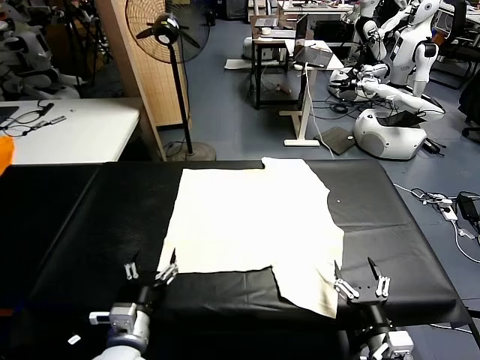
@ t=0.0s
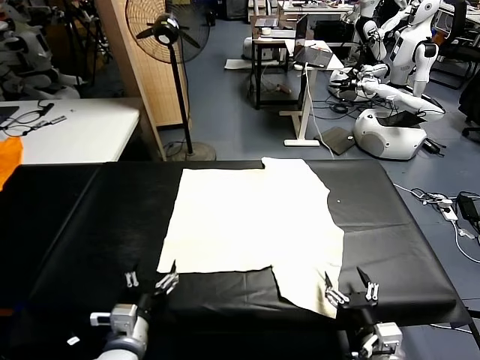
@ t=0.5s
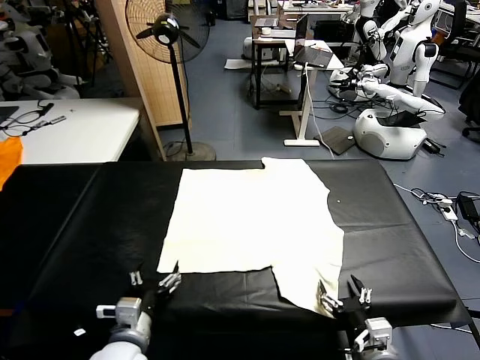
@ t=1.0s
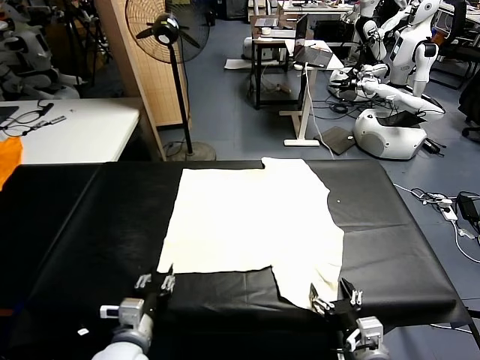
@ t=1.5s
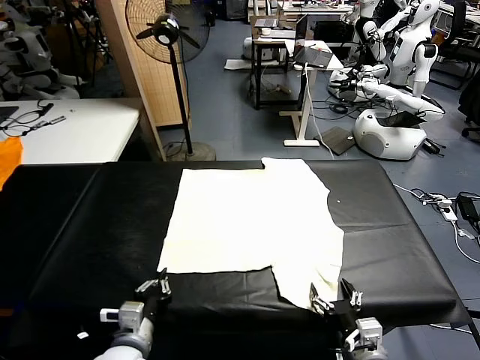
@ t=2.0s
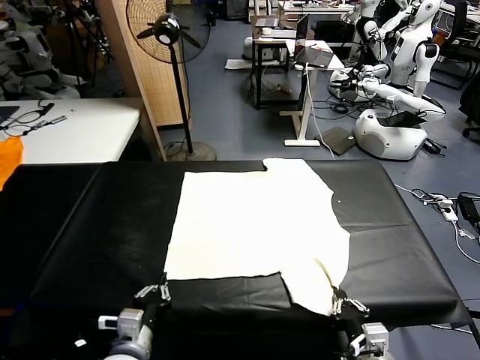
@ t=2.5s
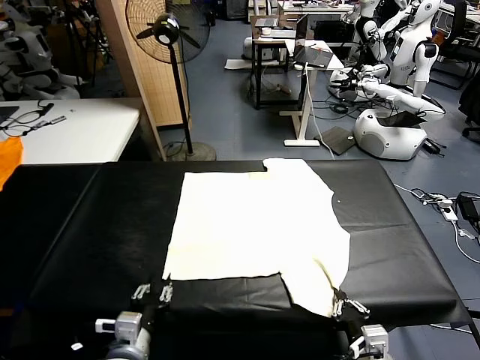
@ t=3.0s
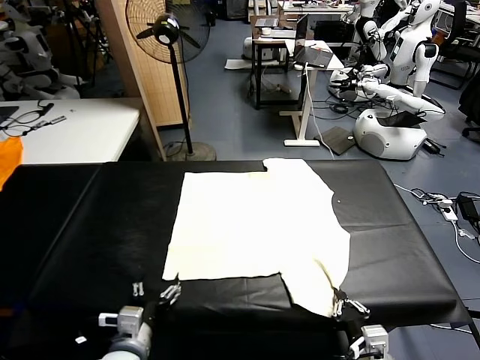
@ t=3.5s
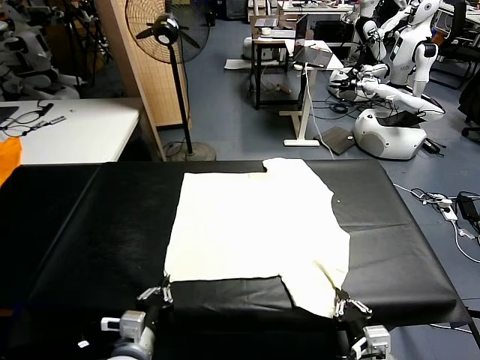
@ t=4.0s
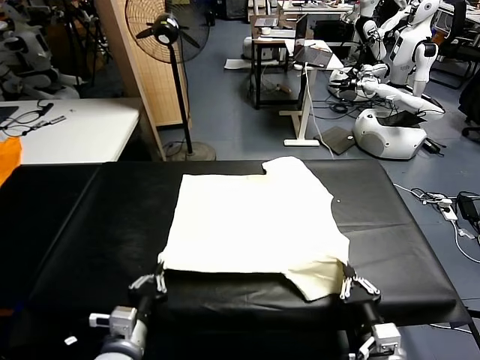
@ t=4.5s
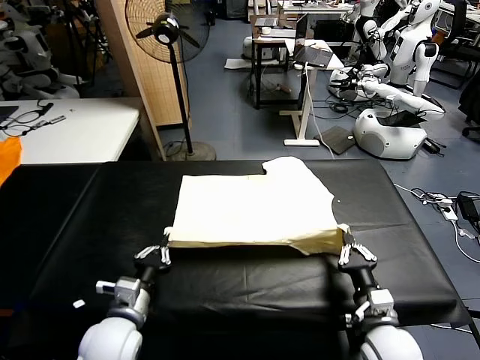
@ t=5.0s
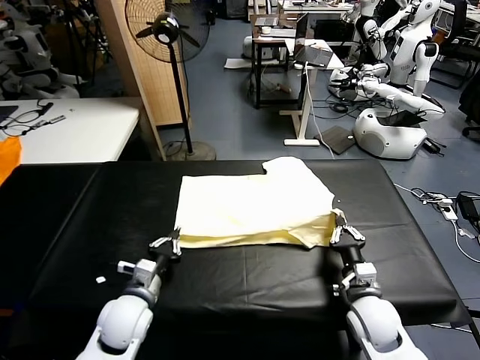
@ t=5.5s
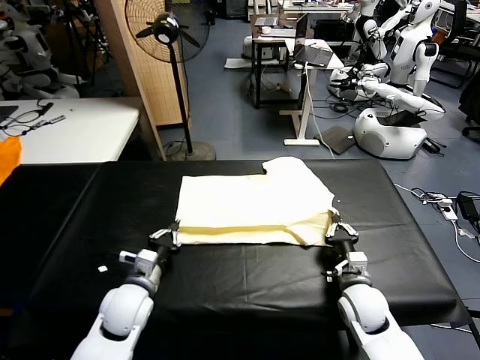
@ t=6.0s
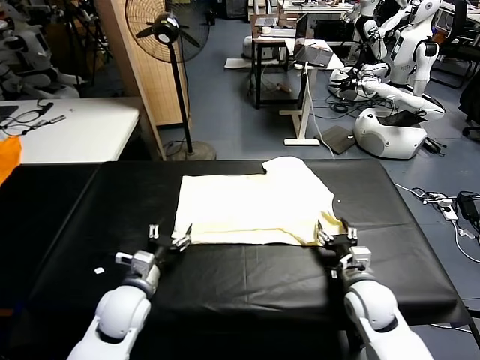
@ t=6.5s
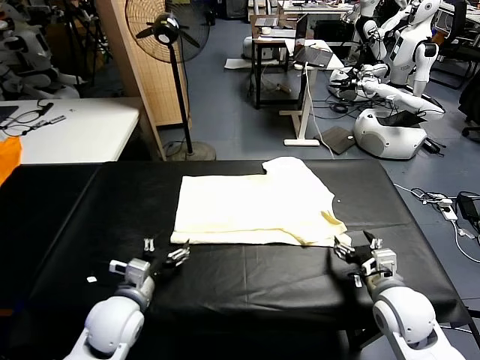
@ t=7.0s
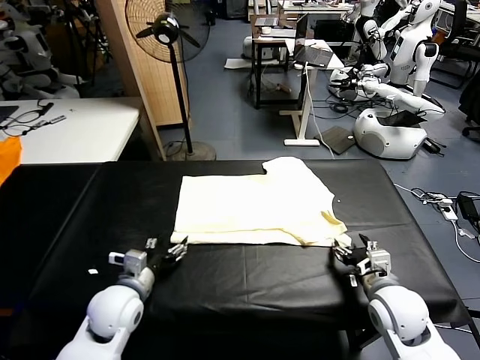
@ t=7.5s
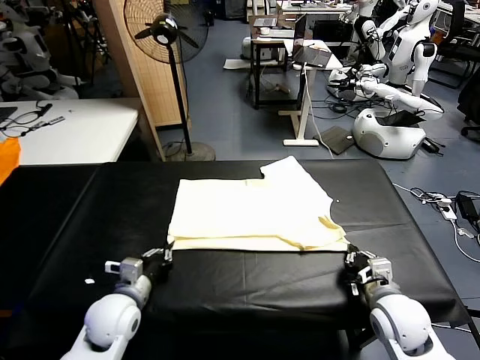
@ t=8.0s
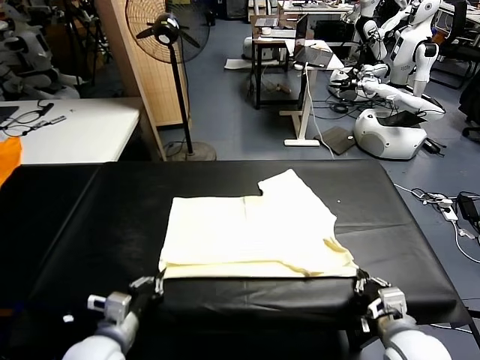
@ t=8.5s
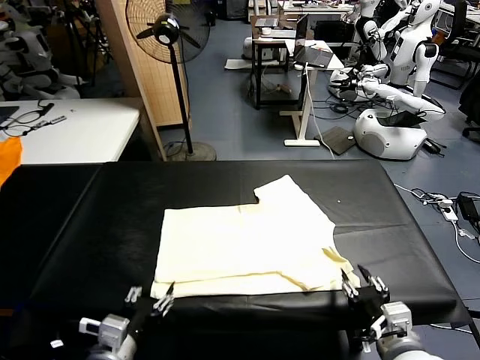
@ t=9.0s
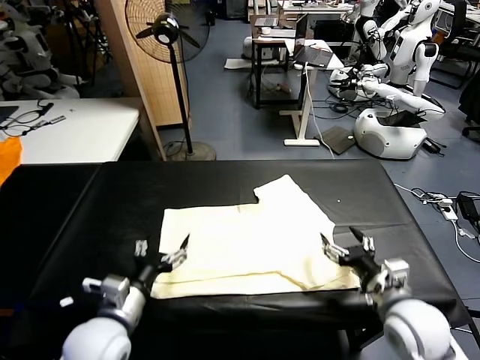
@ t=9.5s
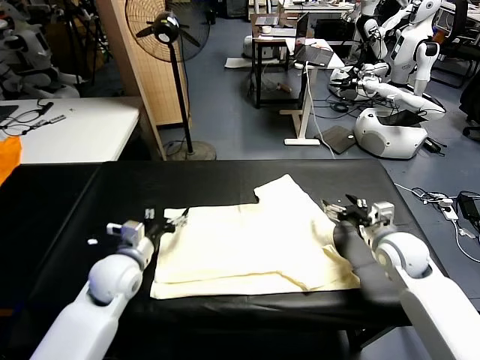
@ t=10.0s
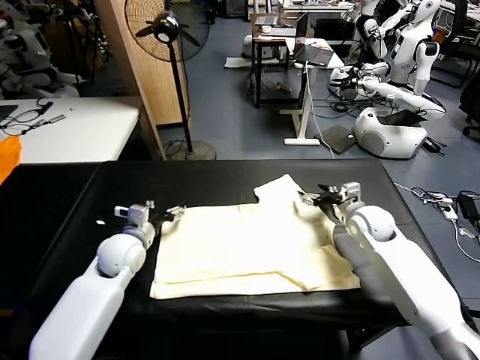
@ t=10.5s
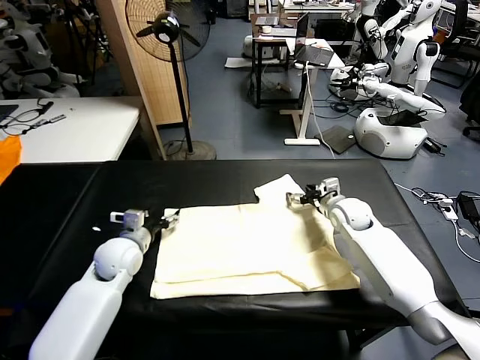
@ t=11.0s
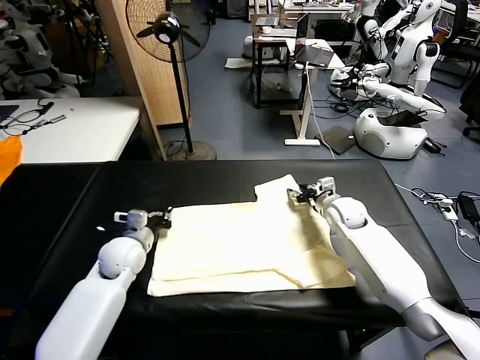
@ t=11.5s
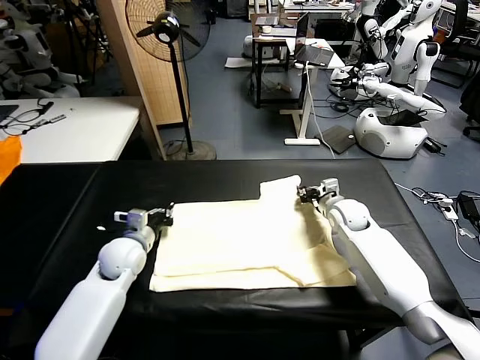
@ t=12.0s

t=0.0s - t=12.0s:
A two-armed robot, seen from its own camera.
Task of the whole recording: fold and organize the clothes.
Step, t=0.0s - t=4.0s: use both grippers simultaneously to clamp the lower edge of the clothing fabric.
Step, t=4.5s - t=6.5s: use both grippers to drag the lower edge of the fabric forward and fold it over the upper edge.
Step, t=7.0s - t=9.0s: Drag the clothes downward with both gripper.
Step, t=9.5s - t=11.5s: use both grippers simultaneously to clamp the upper edge of the clothing fabric.
t=2.0s - t=4.0s: The left gripper opens, then closes once more, while the right gripper closes its fingers.
t=4.0s - t=6.0s: Both grippers travel together forward, roughly 15 cm.
t=6.0s - t=8.0s: The left gripper opens, then closes once more; the right gripper heads upward and backward, covering roughly 10 cm, and opens, then closes again.
t=8.0s - t=10.0s: The left gripper moves forward, about 10 cm, and opens; the right gripper heads forward, covering about 15 cm, and opens.
t=10.0s - t=12.0s: The left gripper is displaced forward by roughly 5 cm, and closes; the right gripper moves forward and to the left, about 10 cm, and closes.

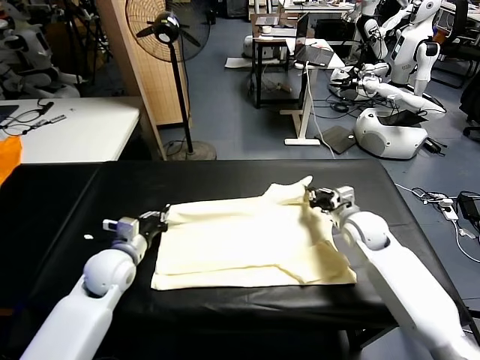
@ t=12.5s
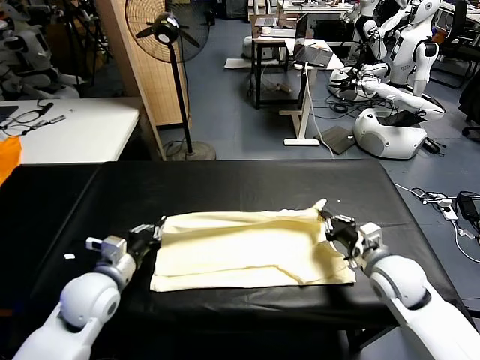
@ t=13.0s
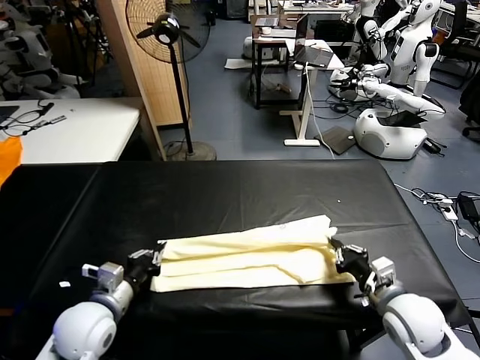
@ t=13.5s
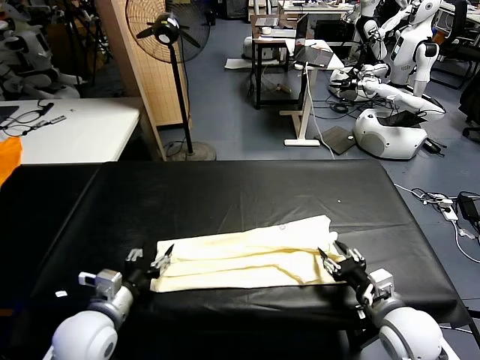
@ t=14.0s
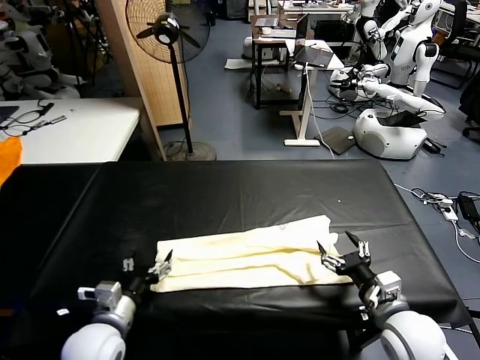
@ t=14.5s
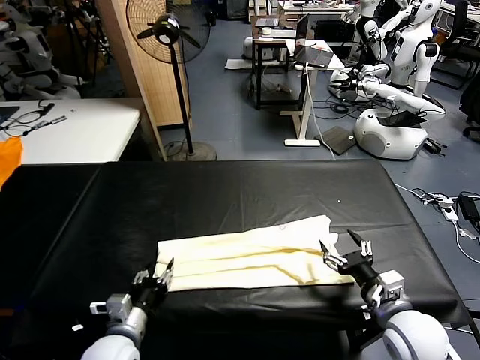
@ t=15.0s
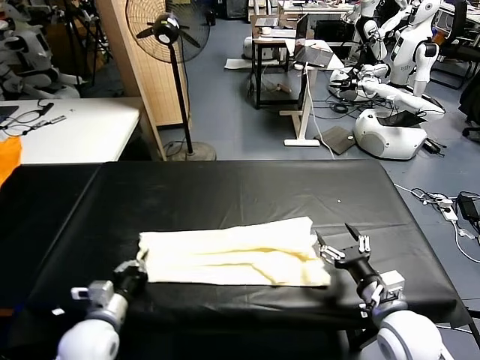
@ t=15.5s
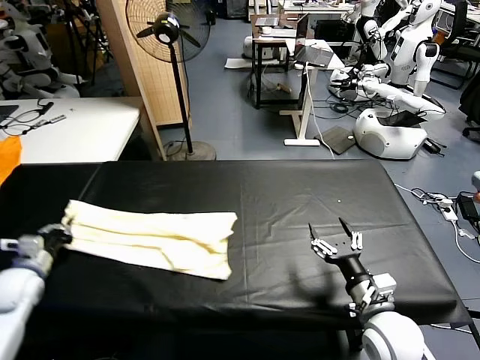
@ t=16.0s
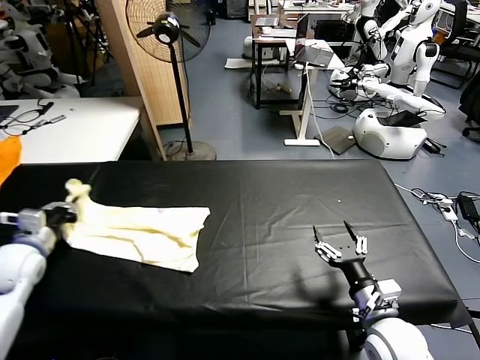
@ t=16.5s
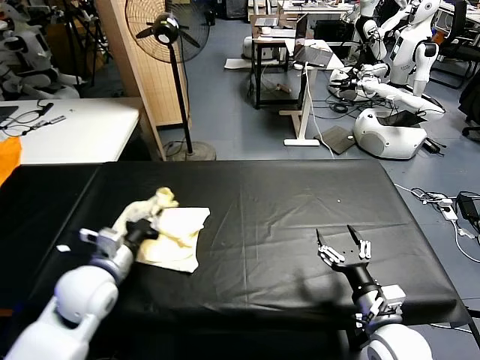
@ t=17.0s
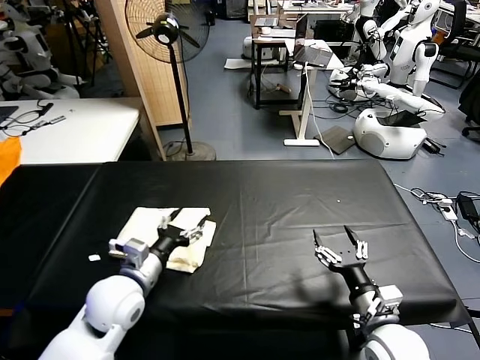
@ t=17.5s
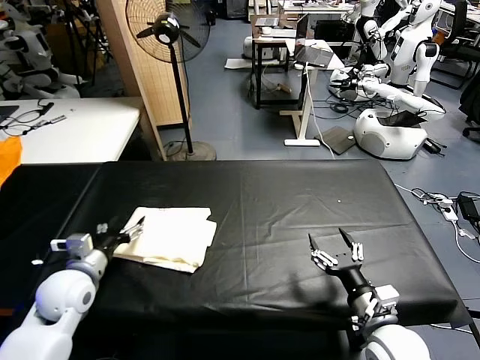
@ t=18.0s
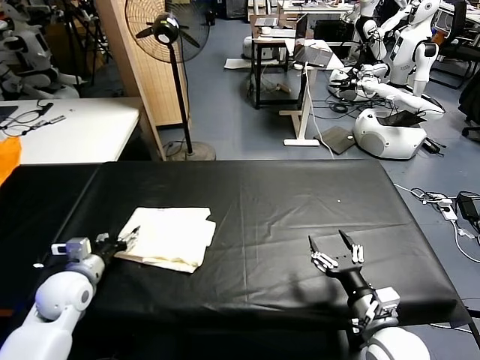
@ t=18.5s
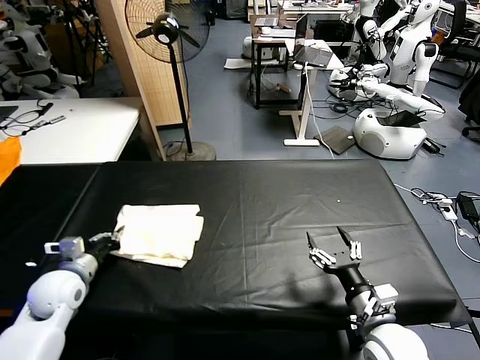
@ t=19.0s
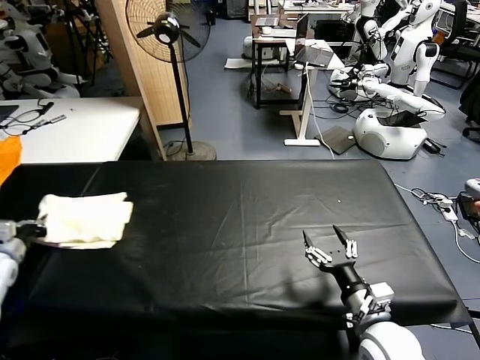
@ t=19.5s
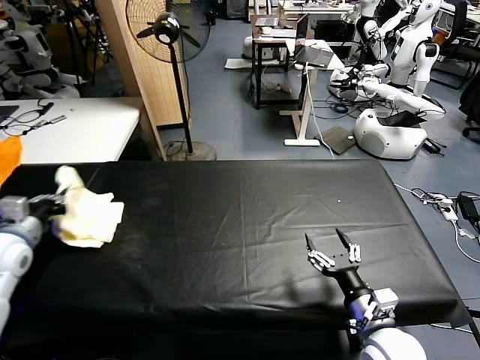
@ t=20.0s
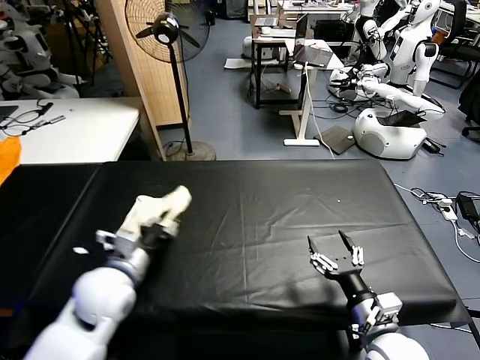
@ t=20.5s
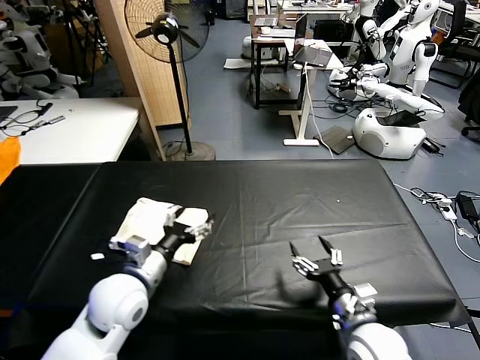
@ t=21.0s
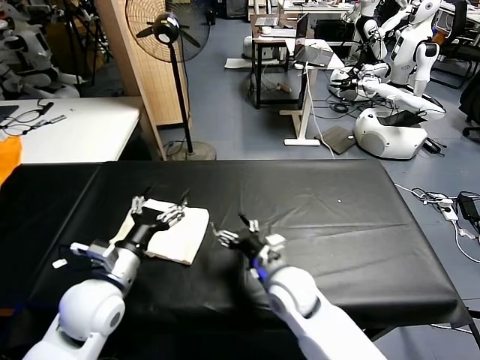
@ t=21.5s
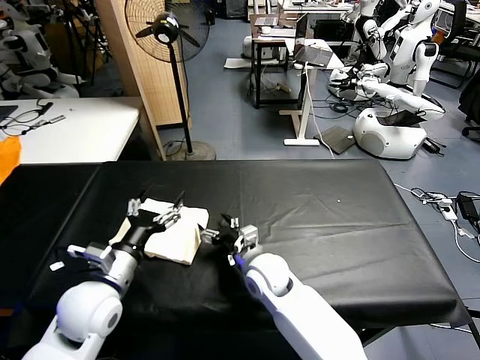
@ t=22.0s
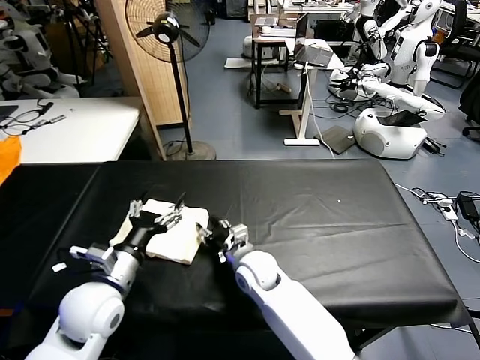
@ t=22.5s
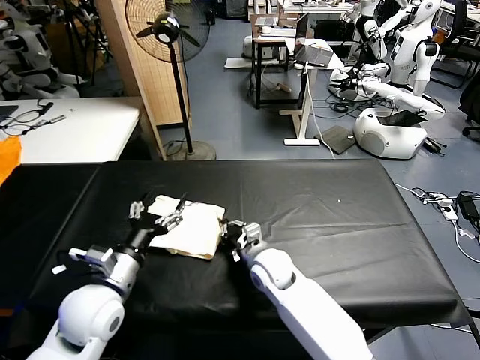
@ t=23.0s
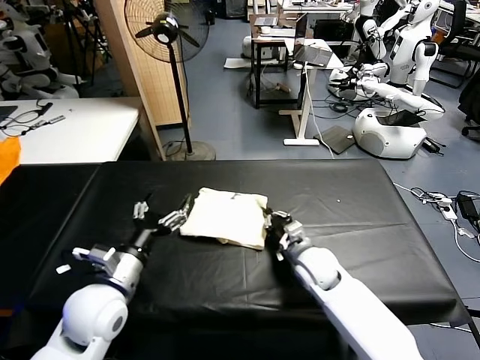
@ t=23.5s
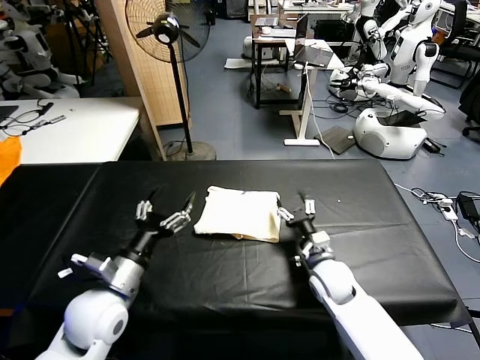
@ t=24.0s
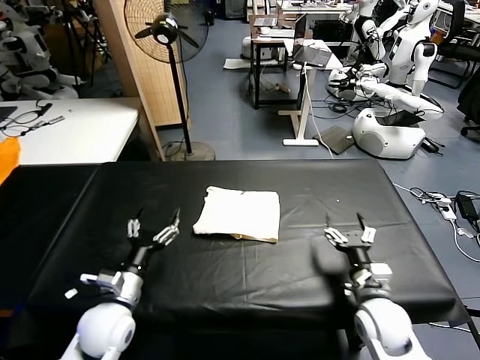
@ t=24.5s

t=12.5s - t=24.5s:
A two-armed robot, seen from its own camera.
Task of the whole recording: fold and organize the clothes.
Step, t=12.5s - t=14.0s: use both grippers to drag the upper edge of the fabric backward and fold it over the lower edge.
Step, t=14.5s - t=15.0s: use the left gripper to clamp the left edge of the fabric.
Step, t=15.5s - t=17.5s: use the left gripper to drag the left edge of the fabric to the left and folds it over the right edge.
Step, t=18.0s - t=20.5s: Flip the folded clothes over with left gripper.
Step, t=21.0s - t=24.0s: Drag the clothes to the center of the table.
t=12.5s - t=14.5s: Both grippers move backward, approximately 20 cm. The left gripper opens its fingers. Meanwhile the right gripper opens.
t=14.5s - t=16.5s: The left gripper heads to the left and forward, covering approximately 25 cm, and closes.
t=16.5s - t=18.5s: The left gripper is displaced to the right and downward by about 10 cm, and opens.
t=18.5s - t=20.5s: The left gripper travels to the right and upward by roughly 15 cm, and closes up.
t=20.5s - t=22.5s: The right gripper heads to the left and forward, covering approximately 30 cm. Meanwhile the left gripper opens.
t=22.5s - t=24.5s: The left gripper heads downward, covering approximately 5 cm, while the right gripper is displaced to the right and backward by about 25 cm, and closes and opens again.

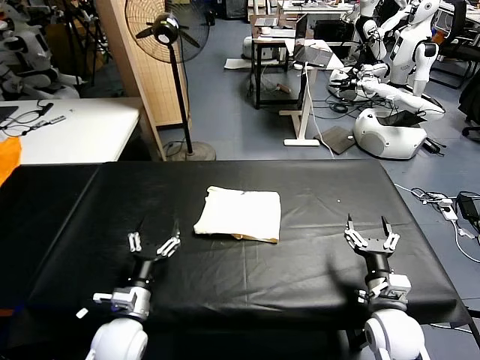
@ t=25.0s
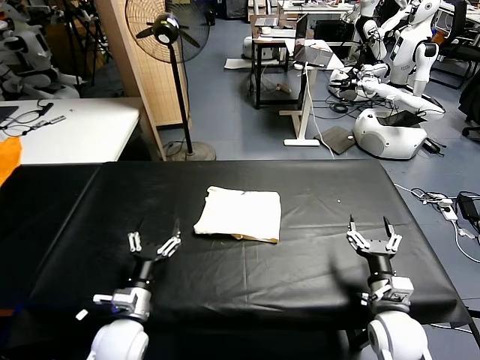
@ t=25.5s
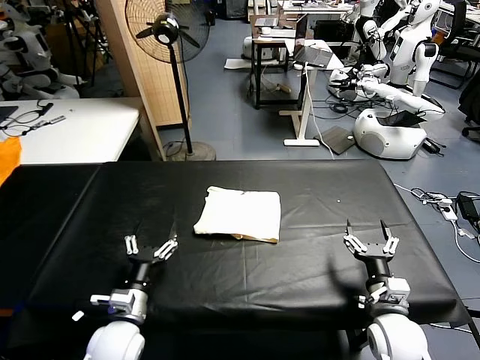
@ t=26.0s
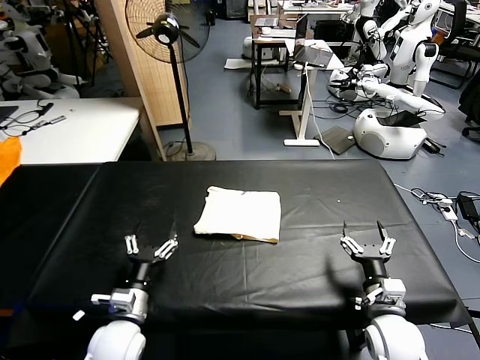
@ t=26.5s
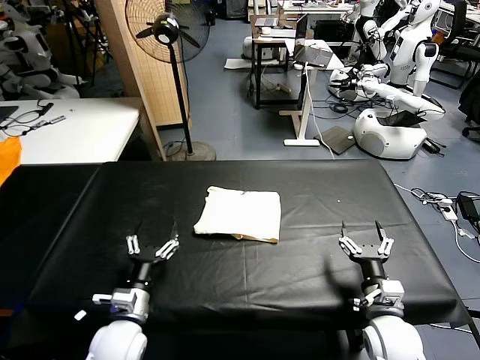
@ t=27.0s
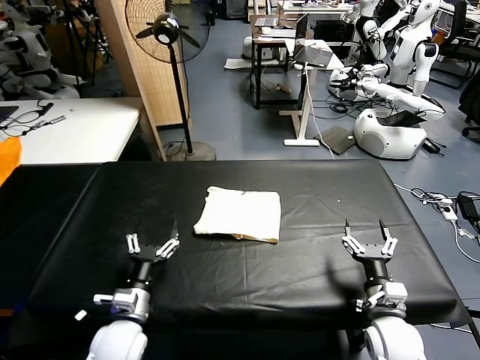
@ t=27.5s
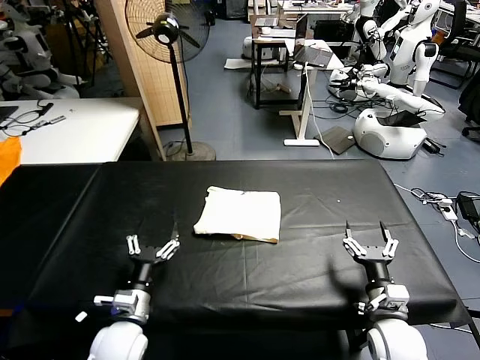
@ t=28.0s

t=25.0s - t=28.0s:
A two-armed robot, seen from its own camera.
Task of the whole recording: fold and organize the clothes.
t=25.0s - t=26.5s: Neither gripper changes place.
t=26.5s - t=28.0s: There are only small adjustments of the grippers.
